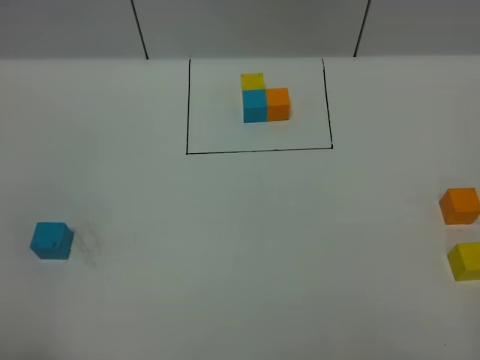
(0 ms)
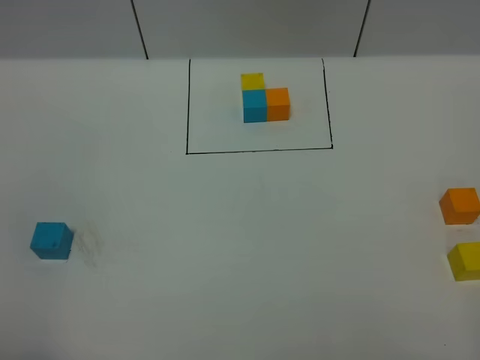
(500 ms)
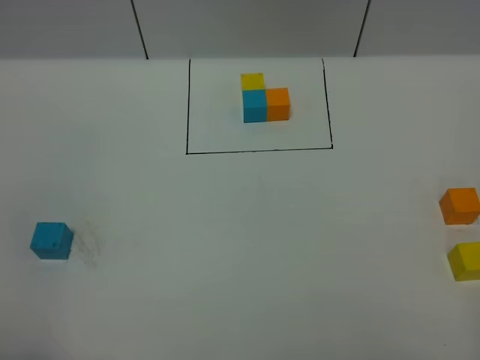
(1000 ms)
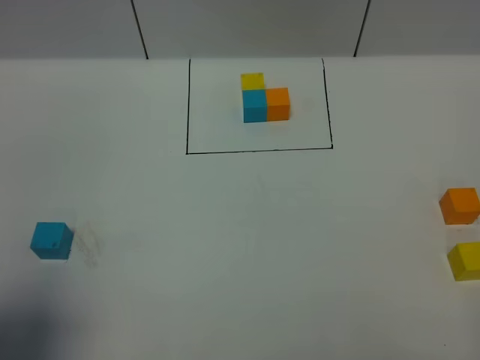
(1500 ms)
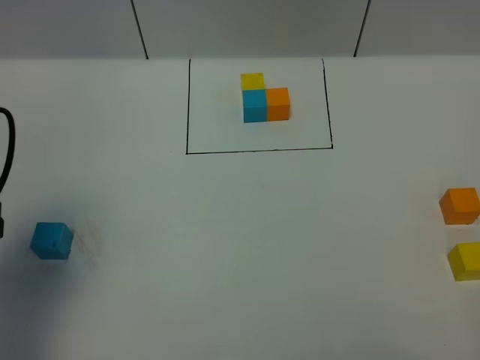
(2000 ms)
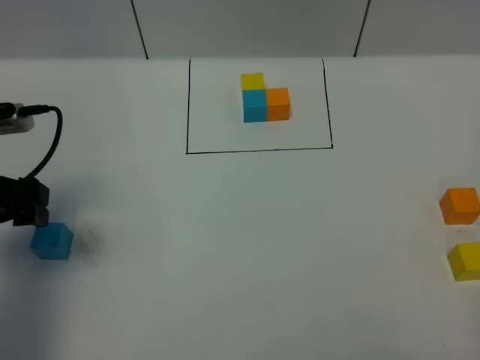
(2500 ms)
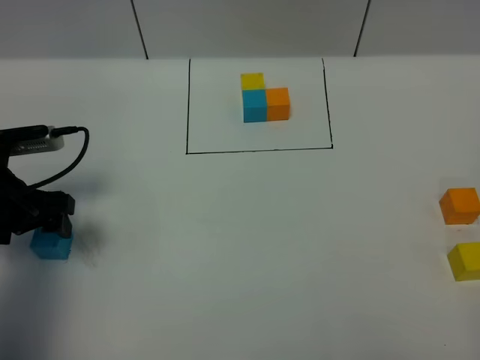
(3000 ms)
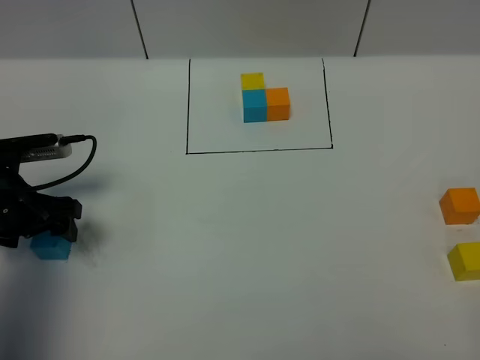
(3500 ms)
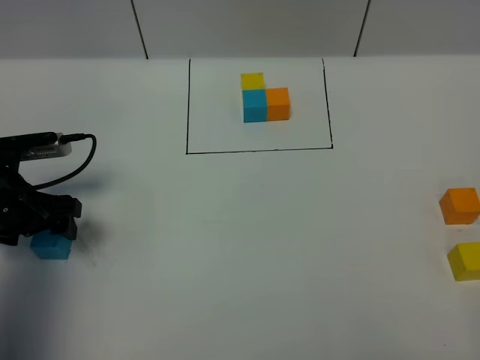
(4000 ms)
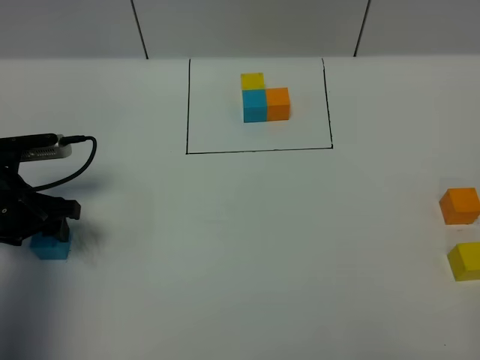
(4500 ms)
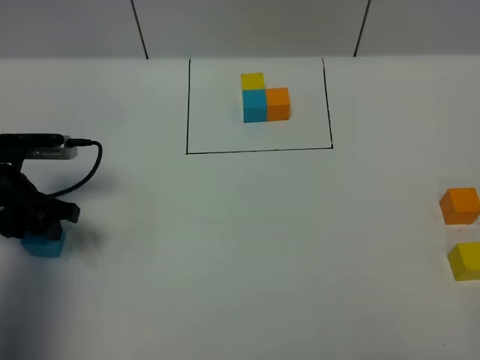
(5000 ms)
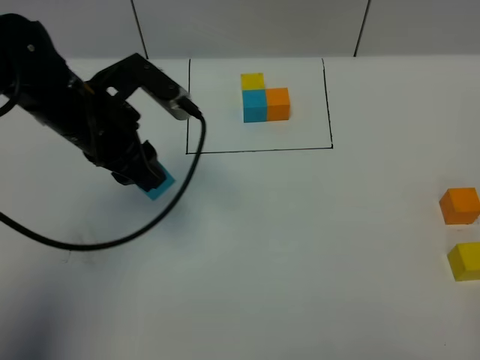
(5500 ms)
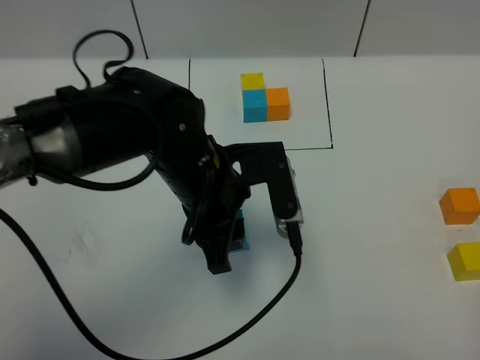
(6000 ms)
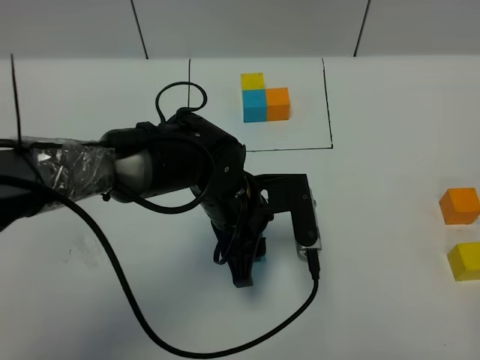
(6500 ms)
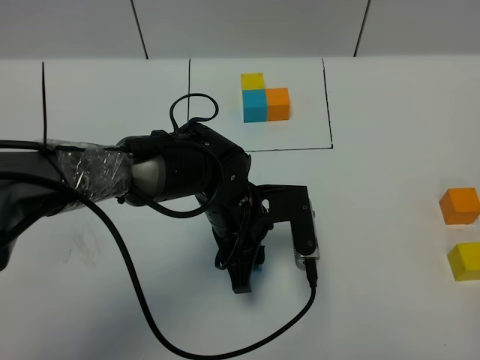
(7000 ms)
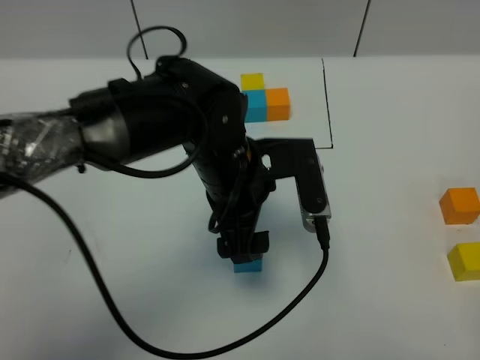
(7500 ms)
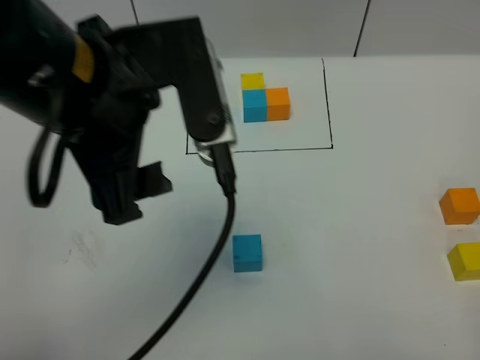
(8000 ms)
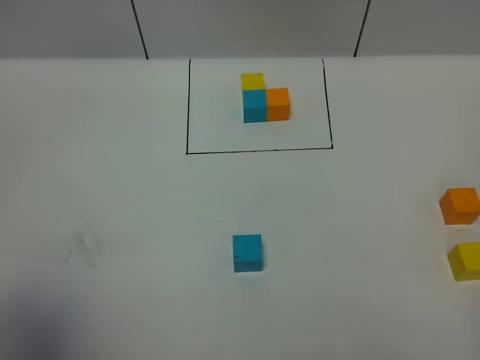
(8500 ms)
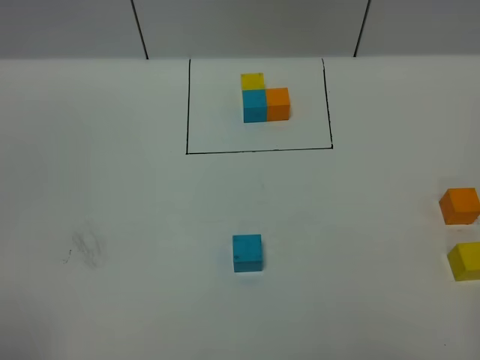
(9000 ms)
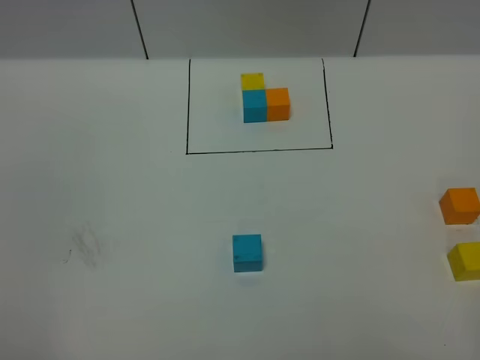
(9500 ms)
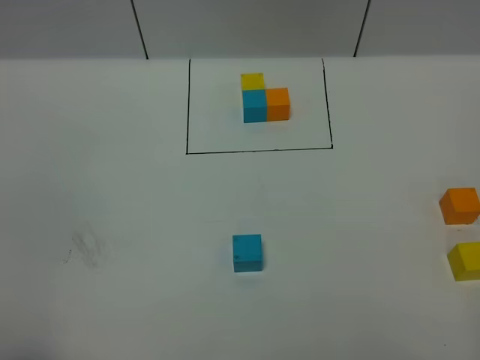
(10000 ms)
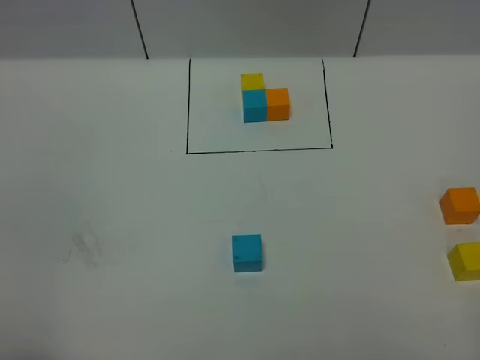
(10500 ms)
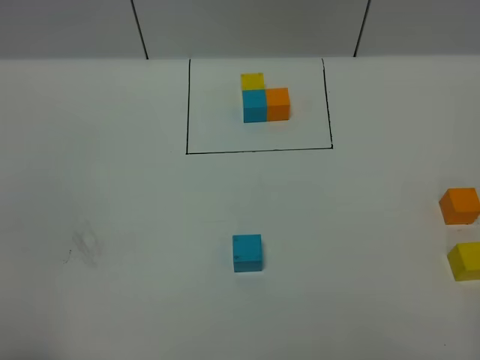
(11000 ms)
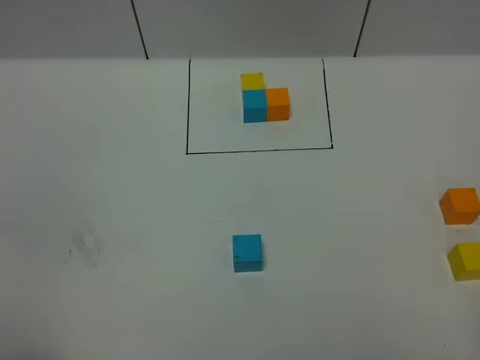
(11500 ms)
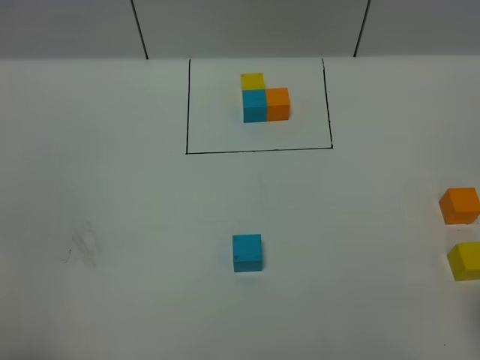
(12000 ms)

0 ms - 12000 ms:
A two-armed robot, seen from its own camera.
Task of the whole recording: According to the building block template in front, assemble the scattered blocks together.
Step, 2000 ms - 7000 ms: Put the blue cube in the center of the table.
0 ms - 2000 ms: The left gripper heads forward, covering some 20 cm.
2000 ms - 4000 ms: The left gripper moves downward and forward, roughly 15 cm.
4000 ms - 6000 ms: The left gripper is displaced to the right by roughly 25 cm, and closes up.
6000 ms - 8000 ms: The left gripper goes approximately 20 cm upward, and opens its fingers.
8000 ms - 10000 ms: The left gripper shifts some 30 cm backward, to the left and downward.

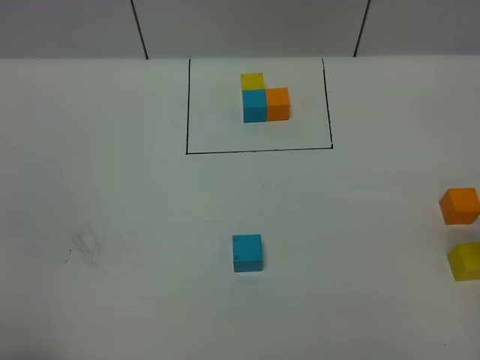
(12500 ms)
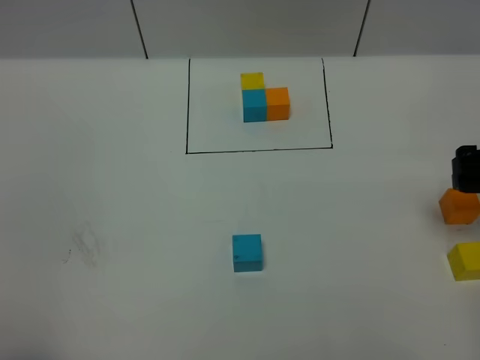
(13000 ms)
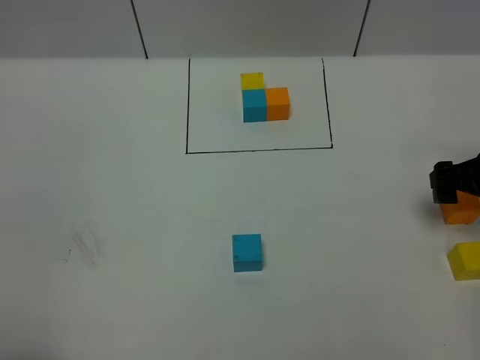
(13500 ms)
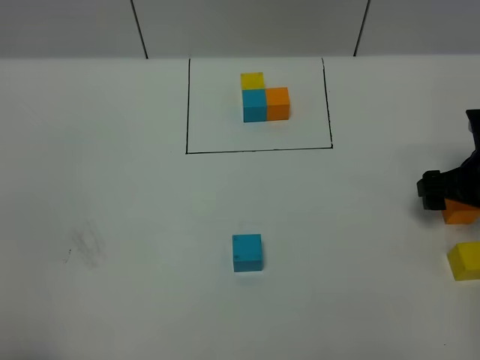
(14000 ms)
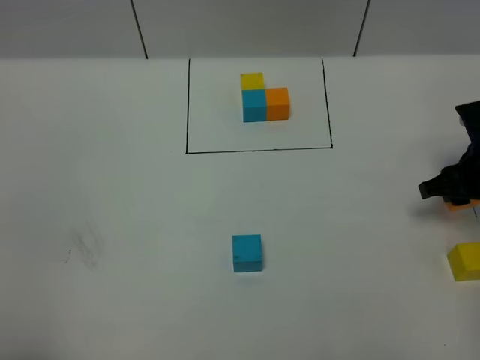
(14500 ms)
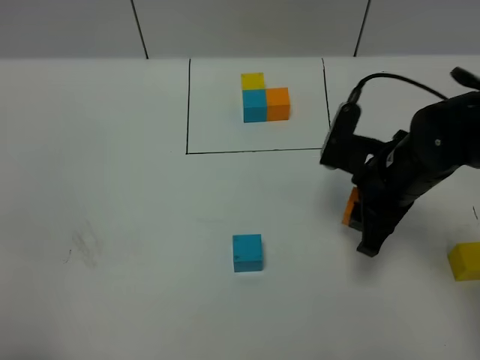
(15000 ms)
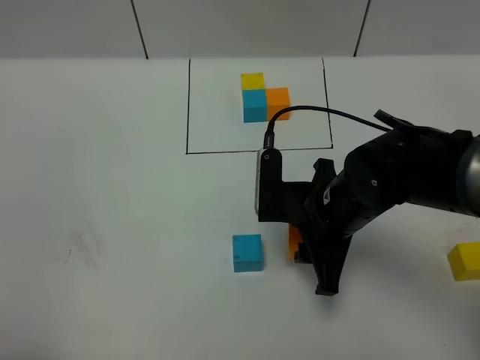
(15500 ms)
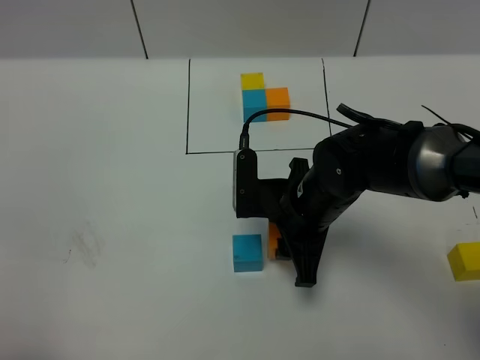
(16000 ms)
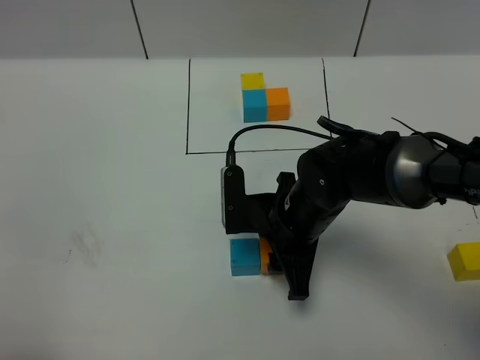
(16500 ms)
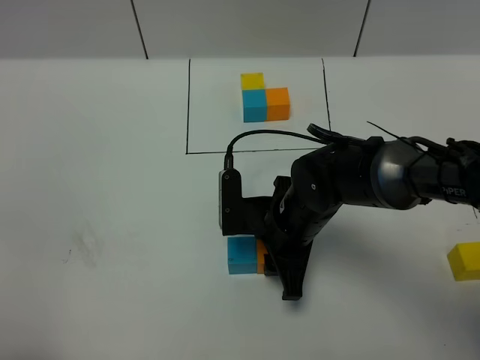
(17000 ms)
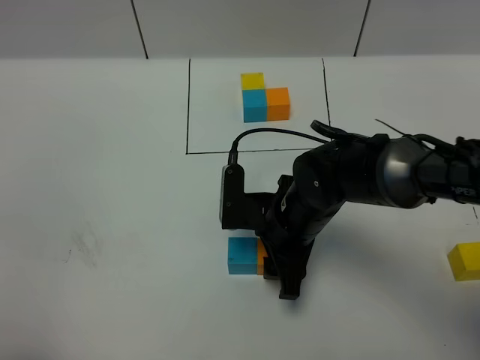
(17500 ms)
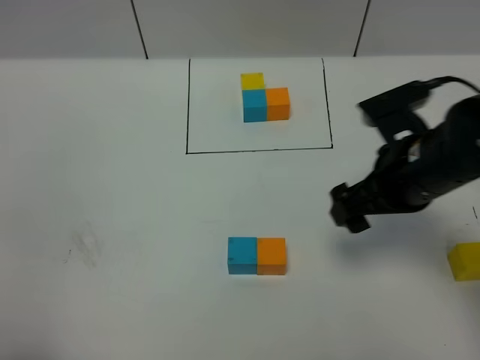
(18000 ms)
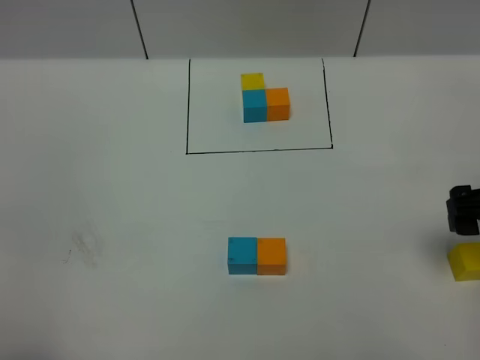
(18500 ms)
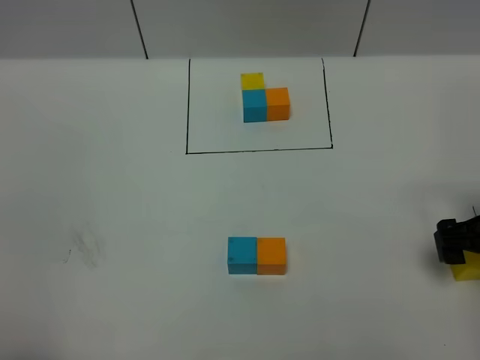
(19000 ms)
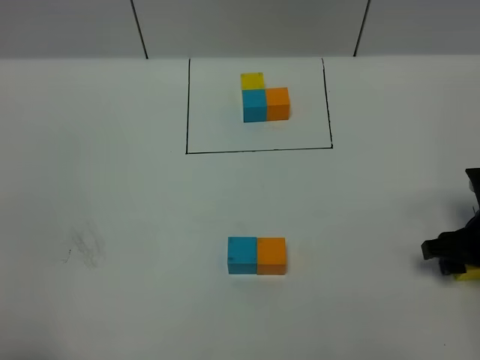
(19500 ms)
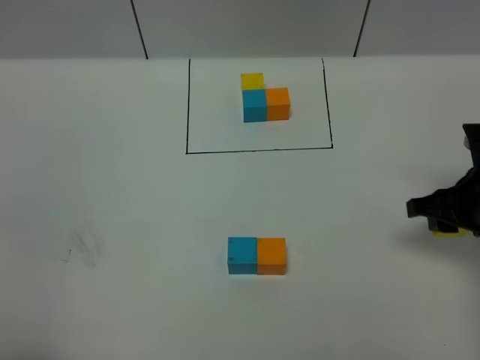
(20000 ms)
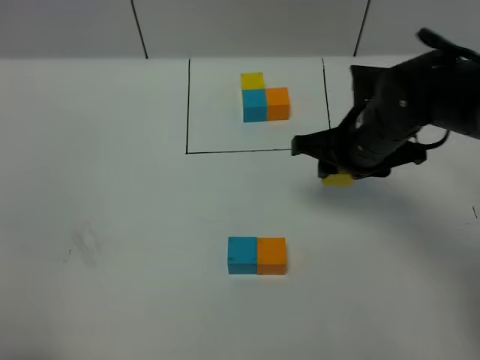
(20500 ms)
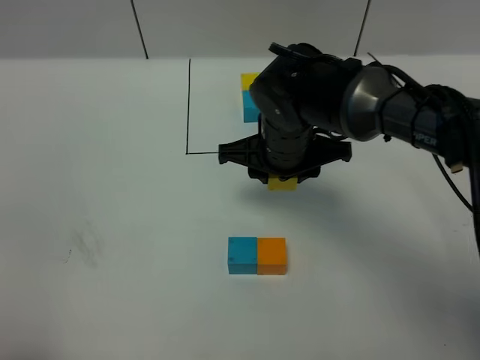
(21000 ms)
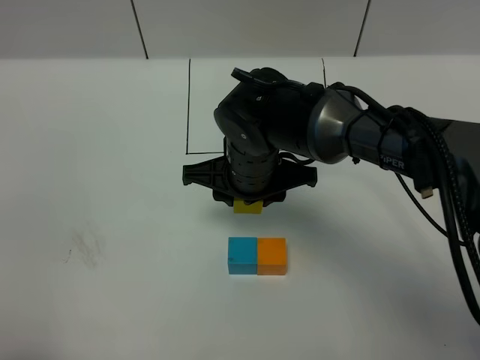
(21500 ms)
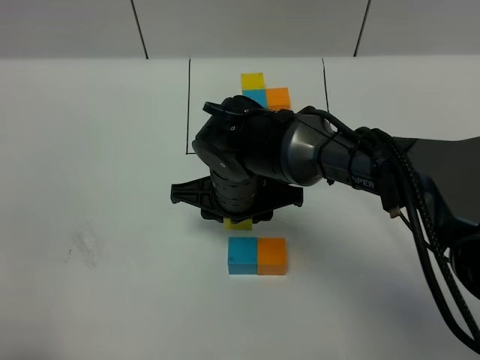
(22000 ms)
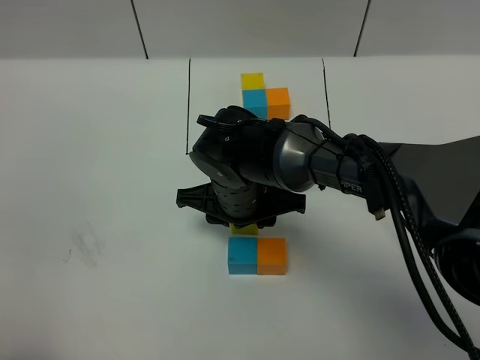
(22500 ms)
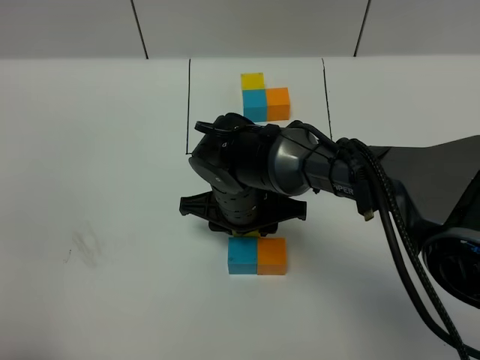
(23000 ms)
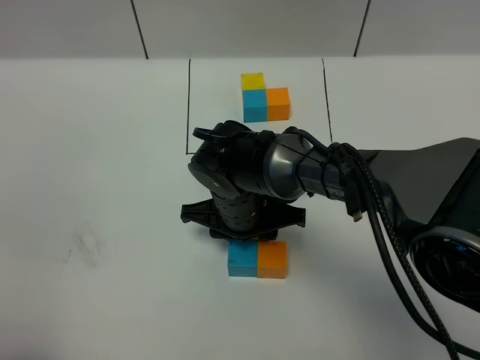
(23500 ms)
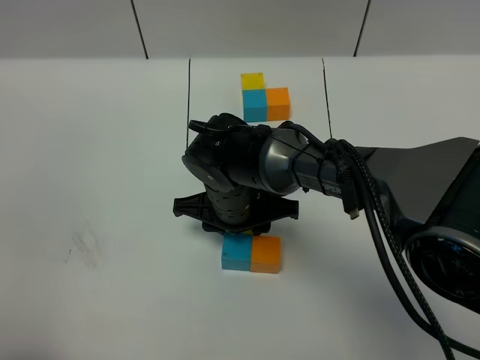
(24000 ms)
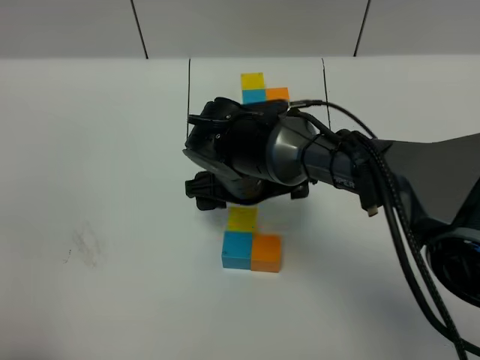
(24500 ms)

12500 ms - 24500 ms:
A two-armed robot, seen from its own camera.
Task of the whole recording: According to the building block template in front, assemble the scattered blocks together.
Step, 12500 ms - 17500 ms: Put the orange cube on the right of the blue cube.
Step, 18000 ms - 24000 ms: Put the yellow cube on the behind of the blue cube.
12500 ms - 14500 ms: The right gripper shifts approximately 15 cm downward and forward, and closes up.
14500 ms - 16500 ms: The right gripper moves to the left, some 25 cm.
16500 ms - 18500 ms: The right gripper is displaced to the right by some 25 cm, and opens its fingers.
18500 ms - 20500 ms: The right gripper shifts roughly 20 cm to the left and forward, and closes up.
20500 ms - 22500 ms: The right gripper moves to the left, roughly 15 cm.
22500 ms - 24500 ms: The right gripper opens its fingers.

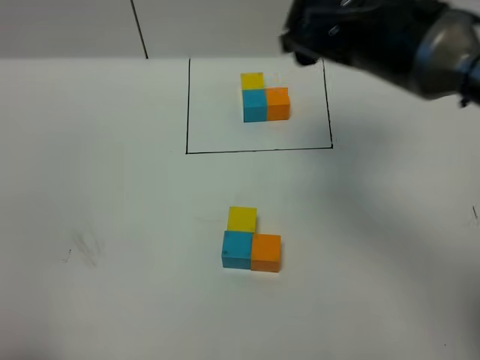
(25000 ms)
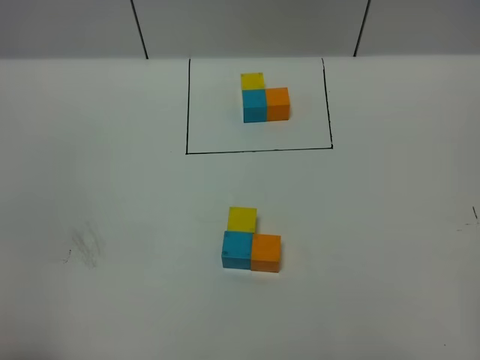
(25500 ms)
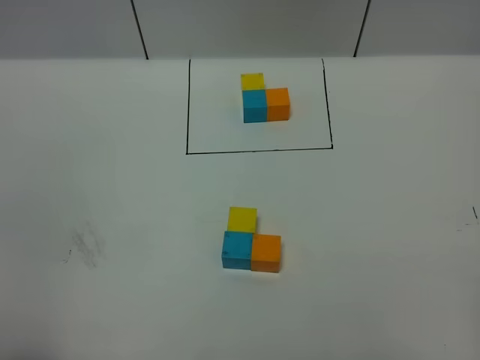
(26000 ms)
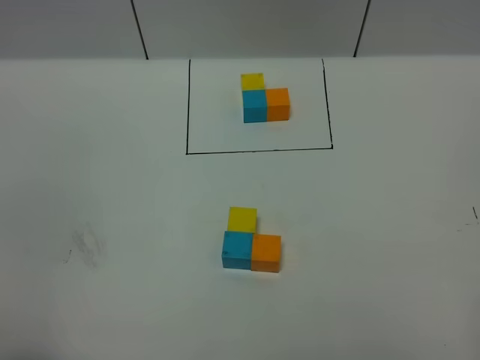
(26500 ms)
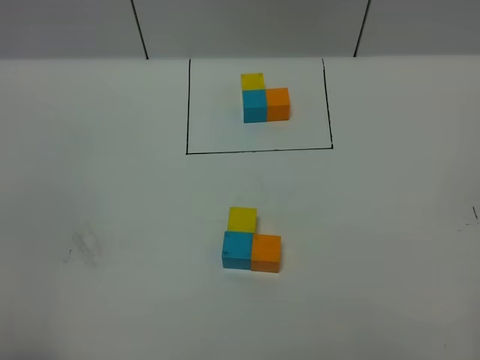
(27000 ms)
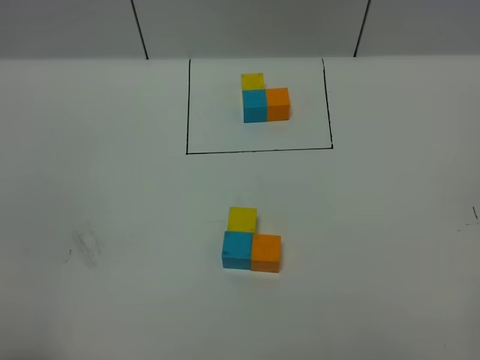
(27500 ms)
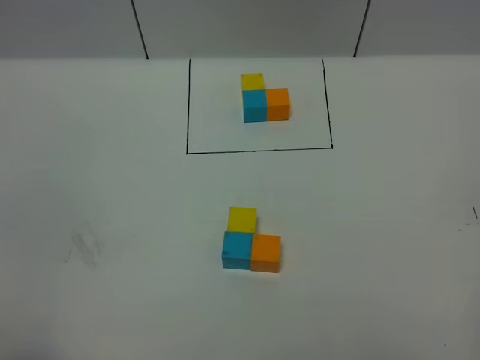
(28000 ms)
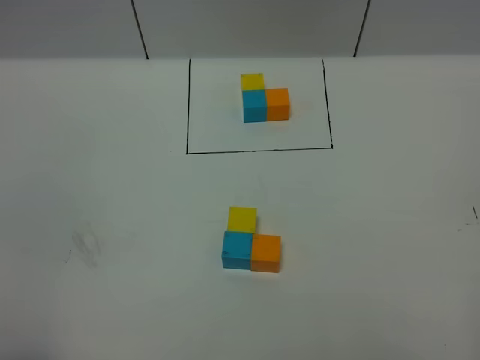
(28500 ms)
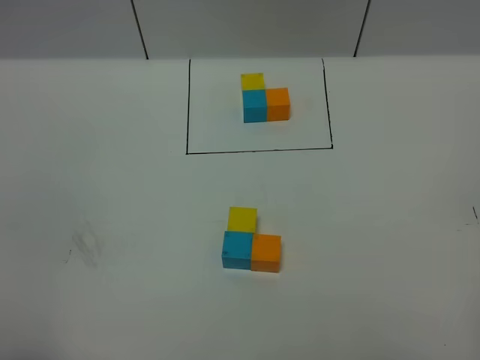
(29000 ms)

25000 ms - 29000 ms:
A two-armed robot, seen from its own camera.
Task of the whole recording: According to the building block template in front, assemble the scattered blocks together.
25000 ms - 27000 ms: The right gripper shifts roughly 40 cm backward and to the right.
